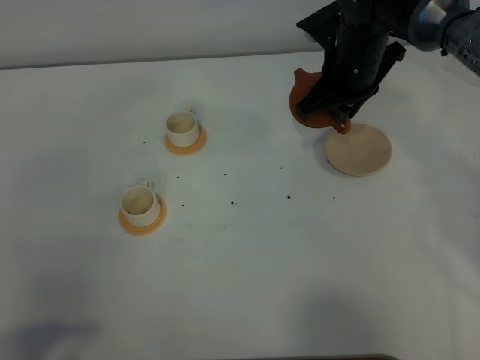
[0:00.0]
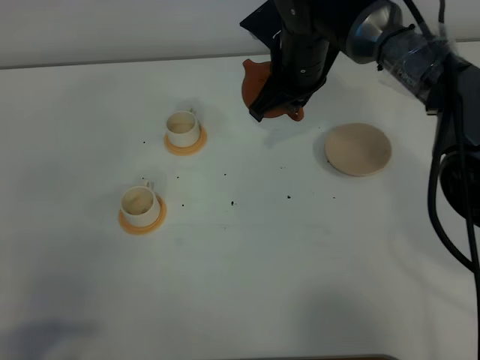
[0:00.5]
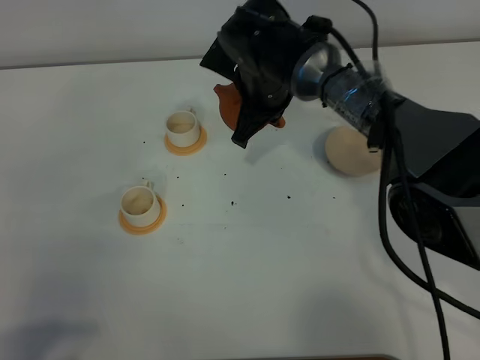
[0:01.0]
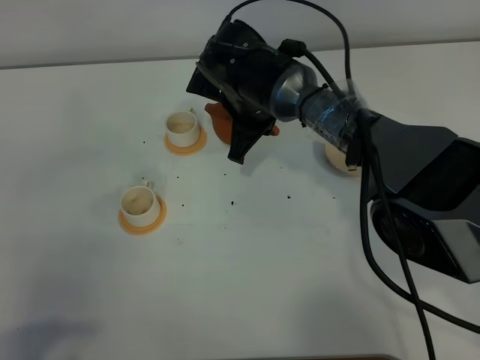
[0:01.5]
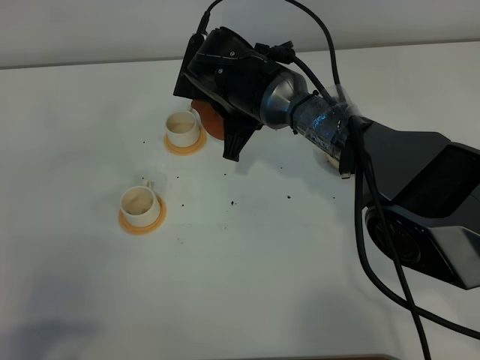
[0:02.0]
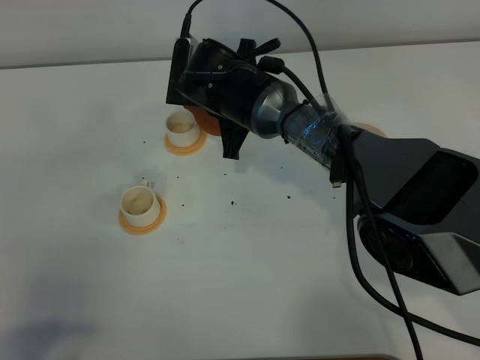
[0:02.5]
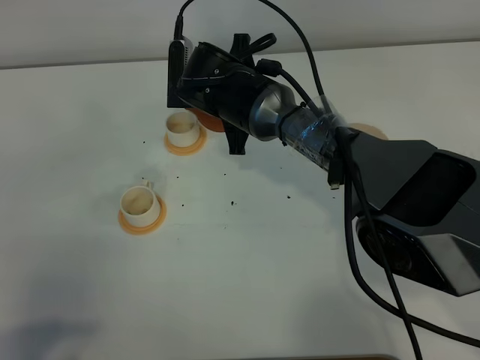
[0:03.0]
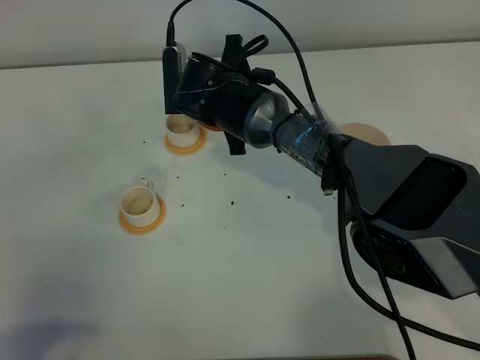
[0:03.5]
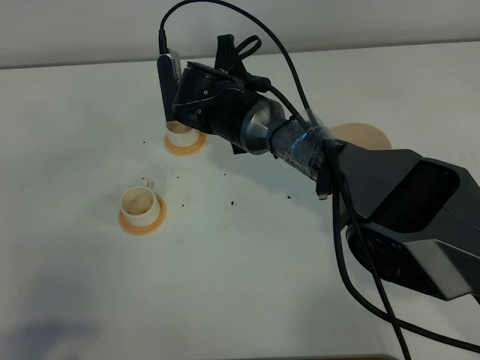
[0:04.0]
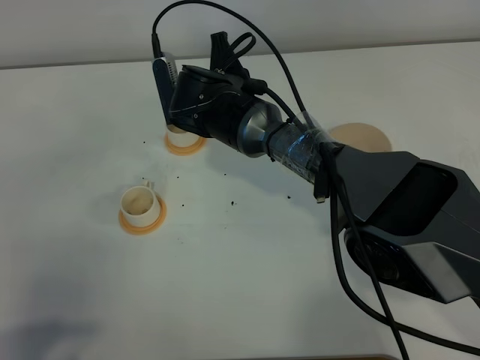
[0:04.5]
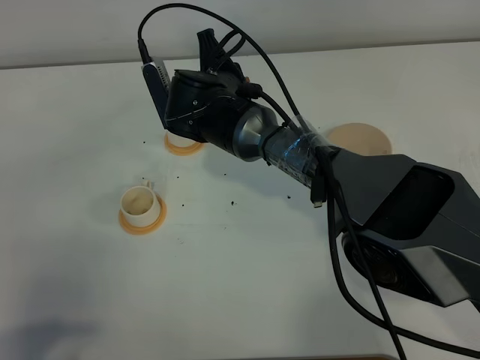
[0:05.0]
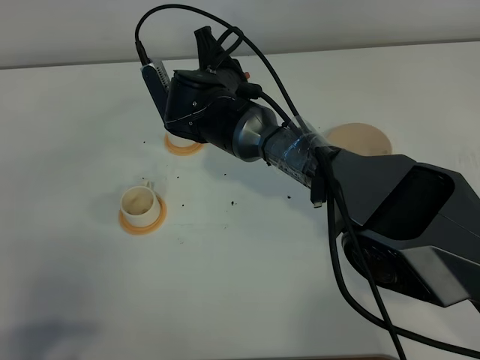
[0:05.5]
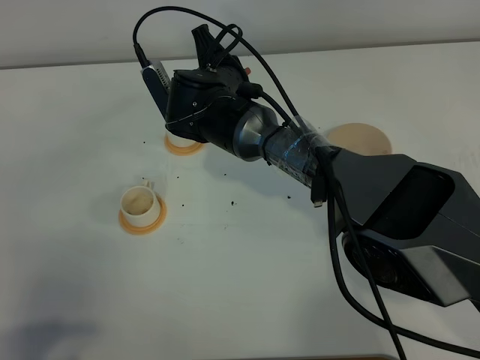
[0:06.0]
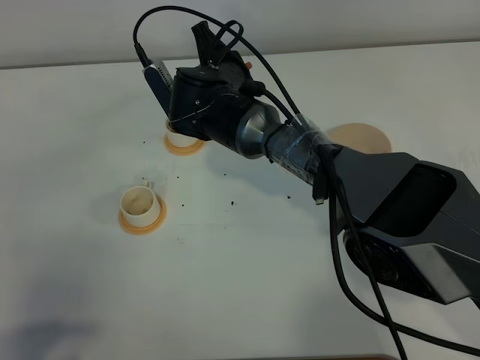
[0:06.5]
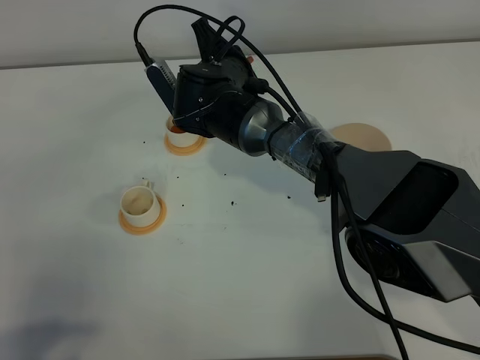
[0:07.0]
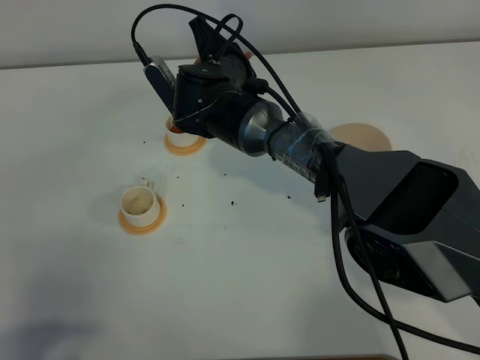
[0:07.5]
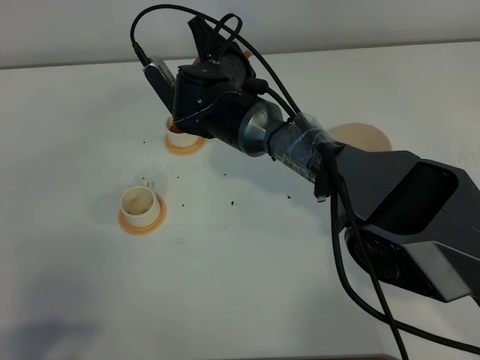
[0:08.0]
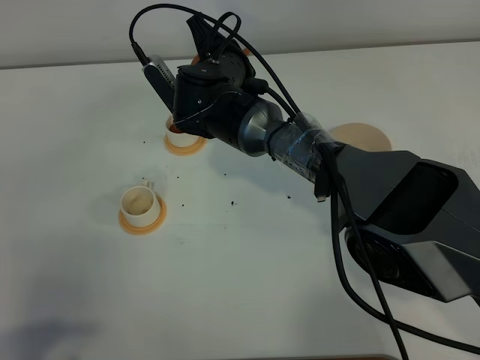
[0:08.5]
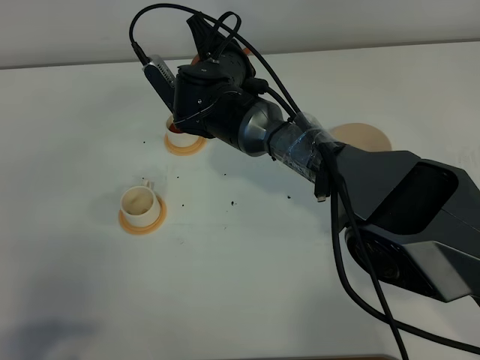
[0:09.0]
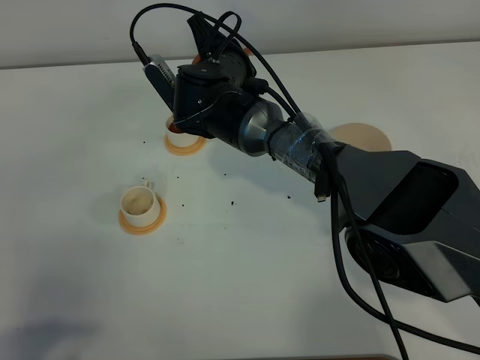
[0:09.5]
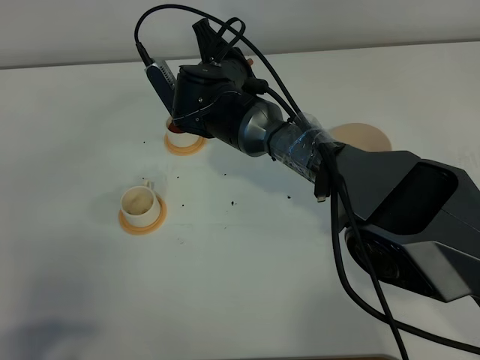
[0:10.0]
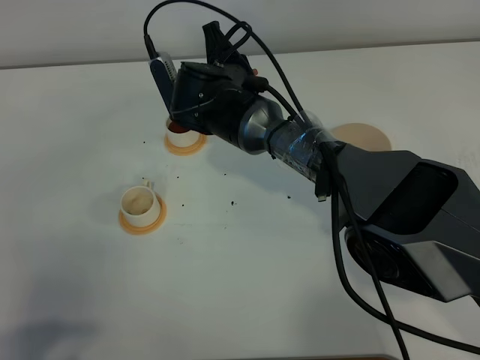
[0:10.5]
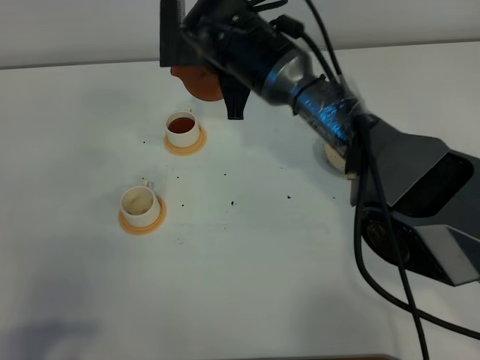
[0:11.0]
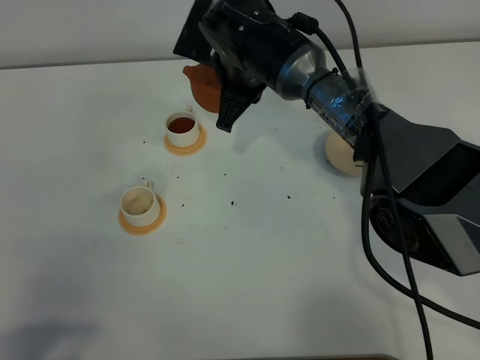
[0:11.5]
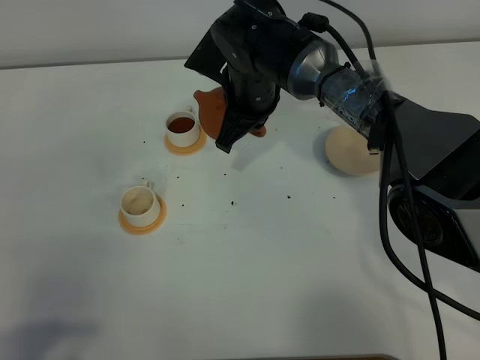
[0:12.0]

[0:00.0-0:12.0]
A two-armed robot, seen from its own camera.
Task of the whole recording: grasp the brown teapot and pour the tea into the two white teacups one by one, put the brown teapot back in its original place.
0:00.0 to 0:02.0: The right gripper heads to the left, covering about 15 cm.
0:04.0 to 0:06.0: The grippers move only a little.
0:06.0 to 0:08.0: The grippers make only small movements.
0:08.0 to 0:10.0: Both grippers stay about where they are.

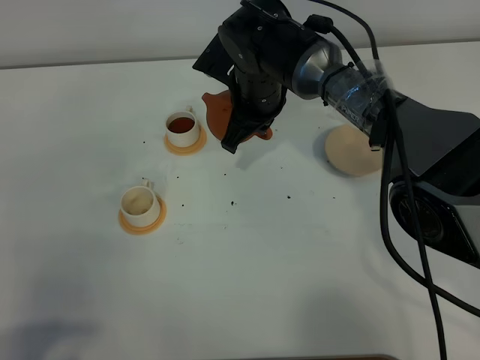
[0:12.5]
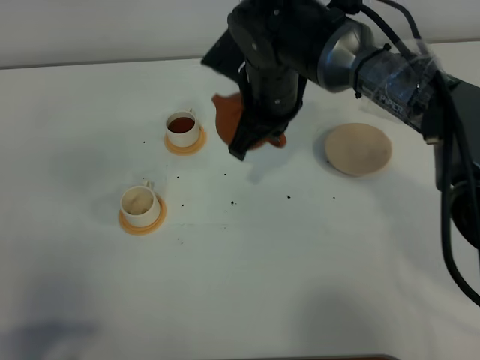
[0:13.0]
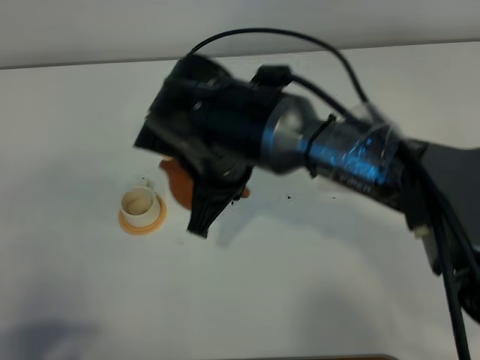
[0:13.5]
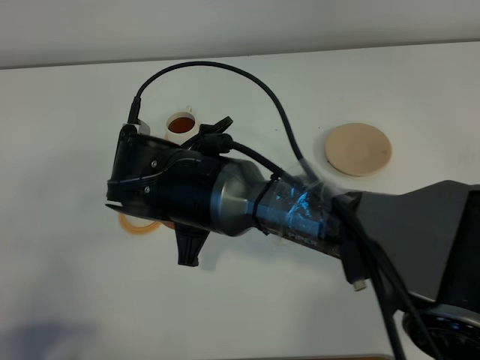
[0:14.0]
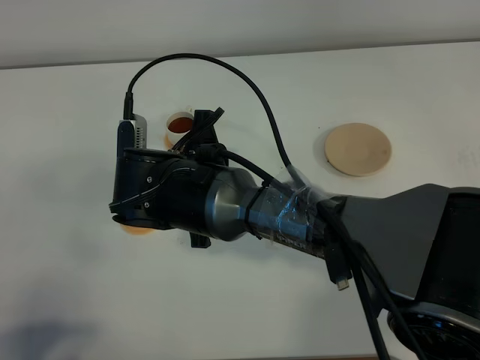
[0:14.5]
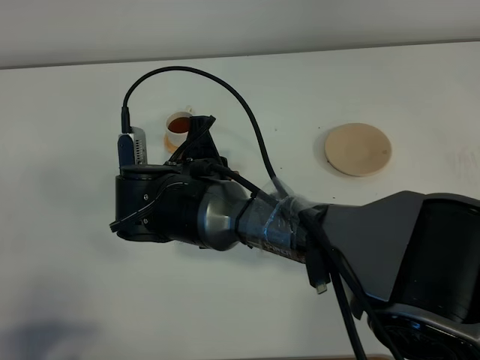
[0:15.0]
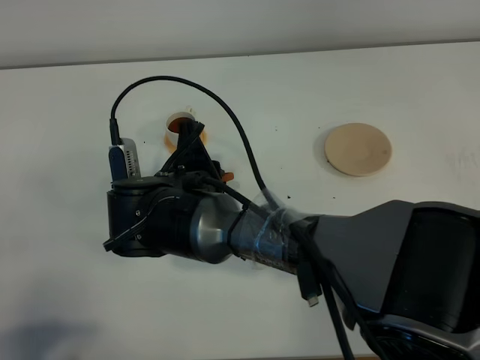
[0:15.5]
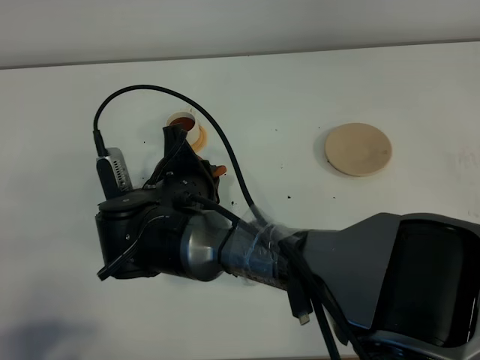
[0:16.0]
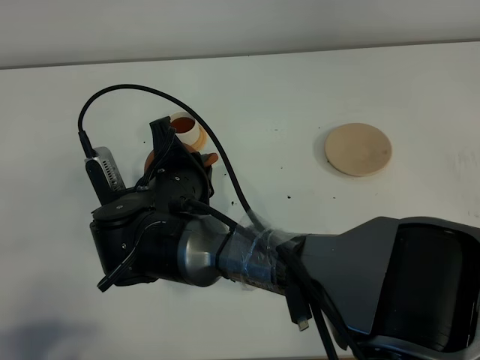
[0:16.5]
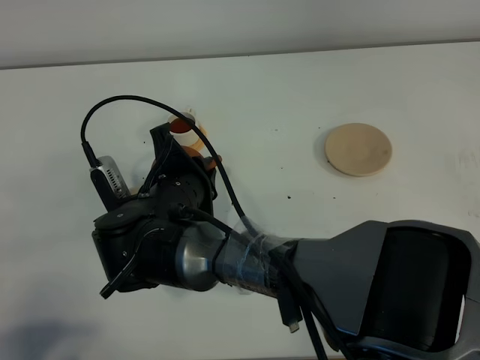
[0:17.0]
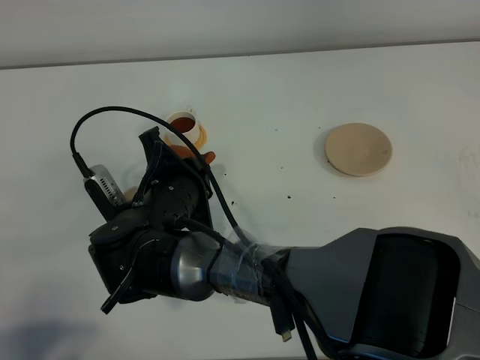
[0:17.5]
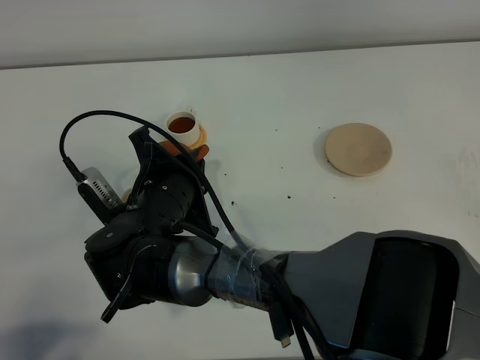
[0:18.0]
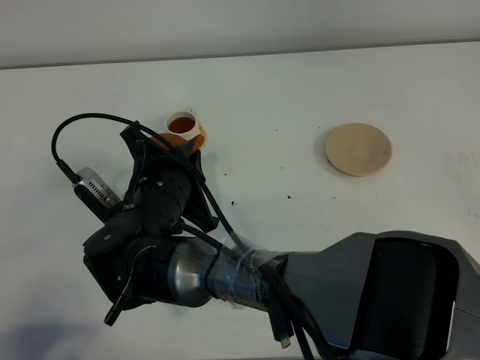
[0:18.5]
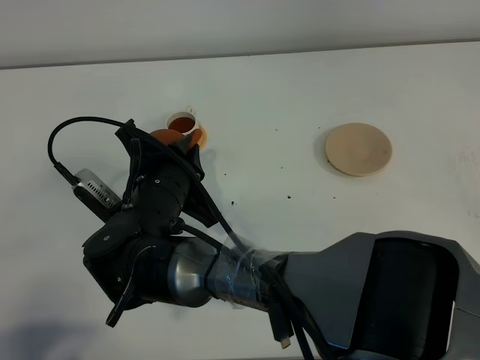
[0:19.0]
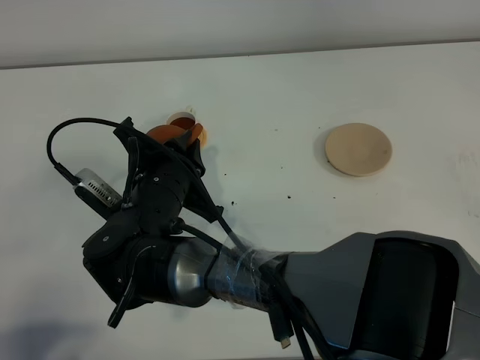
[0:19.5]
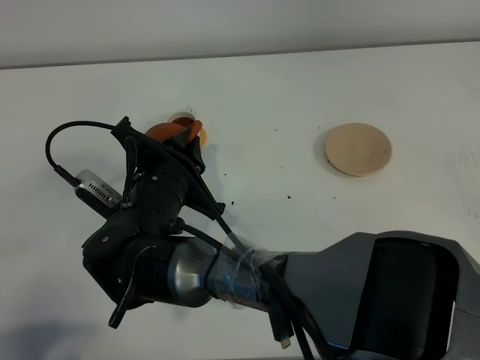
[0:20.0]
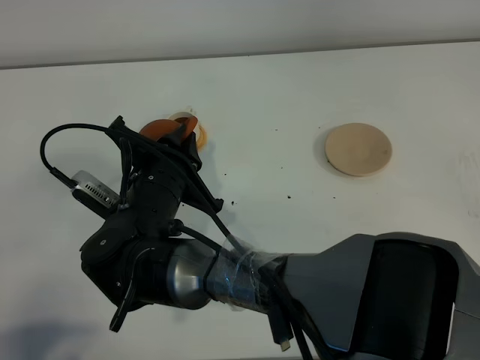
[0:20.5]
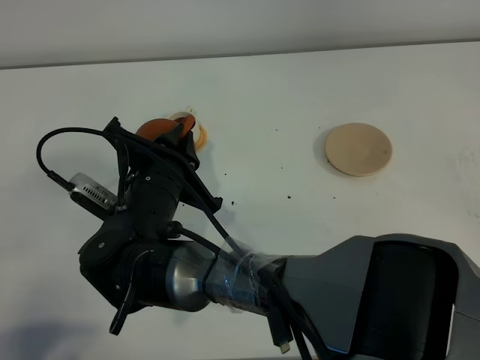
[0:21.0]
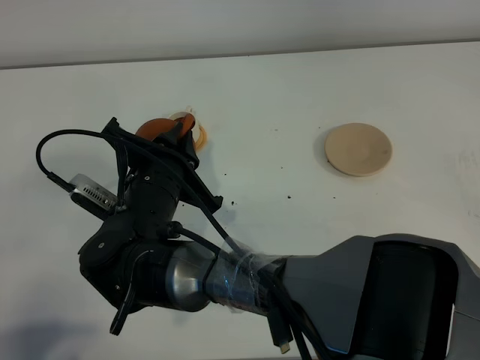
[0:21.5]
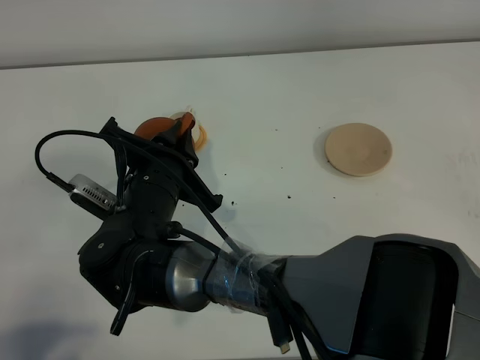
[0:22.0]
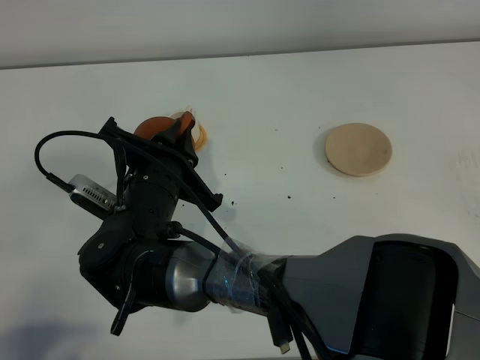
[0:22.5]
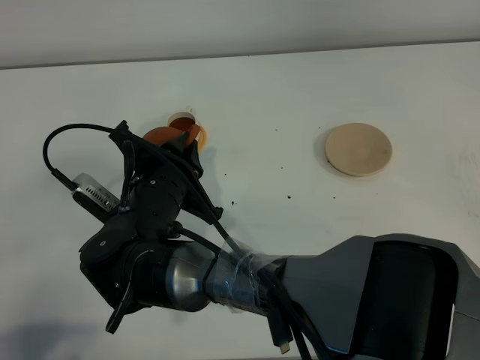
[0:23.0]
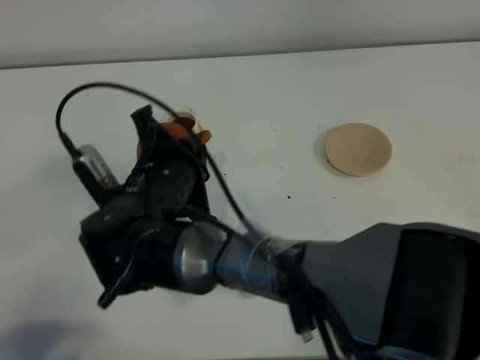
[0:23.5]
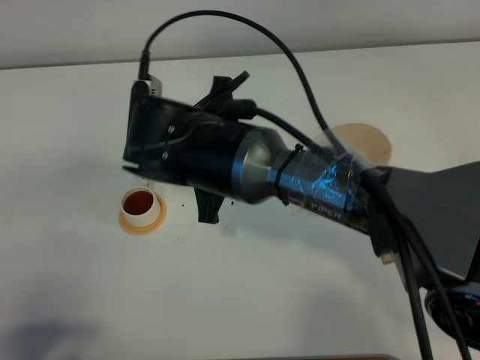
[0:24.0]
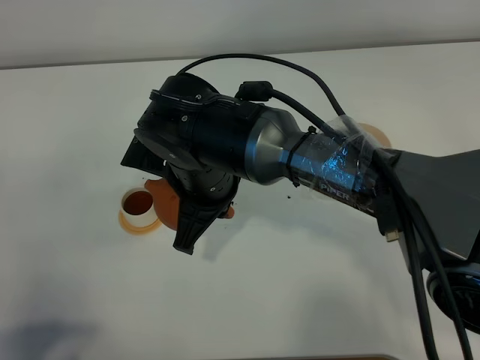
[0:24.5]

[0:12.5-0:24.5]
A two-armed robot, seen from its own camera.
Task of the whole recording: grasp the brown teapot and pour the tea into the two white teacups one by one, put the brown teapot back in its original place.
Step, 0:12.5 to 0:23.5: Pour tea into the teacup with the right gripper.
0:12.5 to 0:14.5: The right gripper shifts about 15 cm backward.
0:16.5 to 0:18.5: The grippers make only small movements.
0:18.5 to 0:20.5: The grippers stay close to where they were, moving slightly.
0:20.5 to 0:22.5: Neither gripper changes place.
0:22.5 to 0:24.5: The right gripper moves to the right, roughly 5 cm.

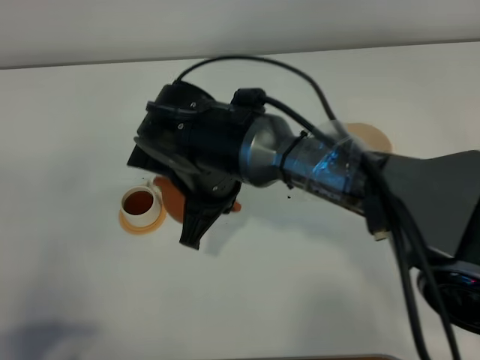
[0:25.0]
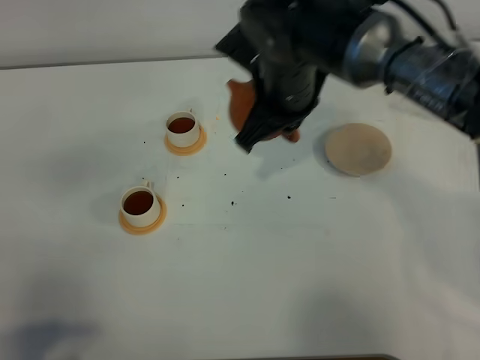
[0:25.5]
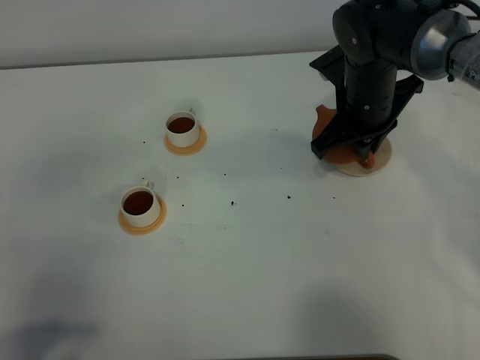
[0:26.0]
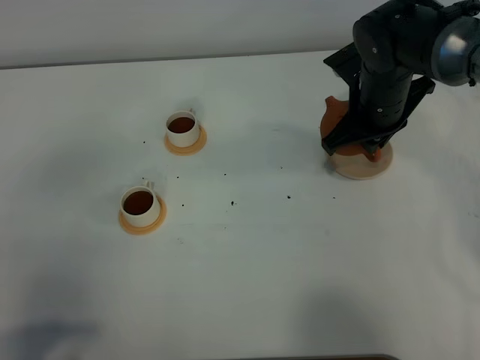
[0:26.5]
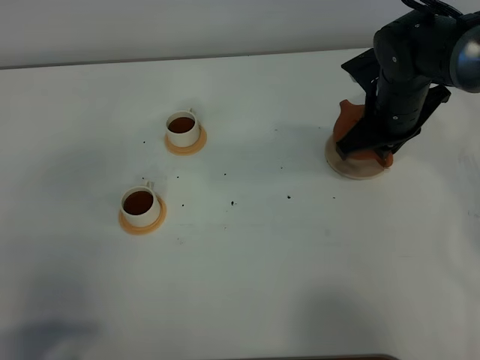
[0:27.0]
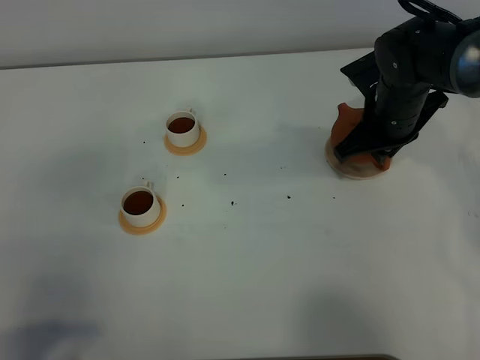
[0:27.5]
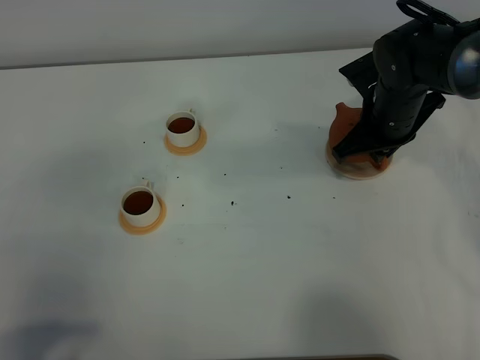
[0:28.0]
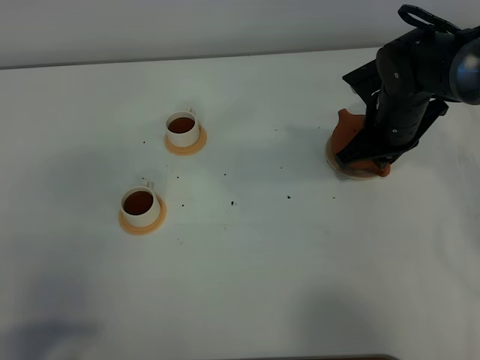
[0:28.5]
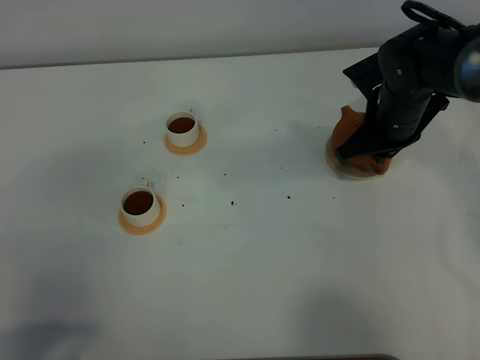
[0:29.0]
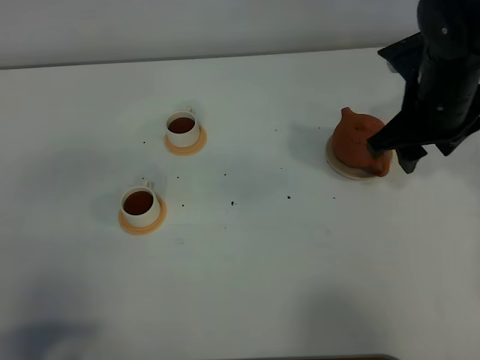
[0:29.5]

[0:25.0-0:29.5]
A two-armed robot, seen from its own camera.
Task of the whole recording: grasp the brown teapot and pour the tea into the two white teacups one by one, put the brown teapot back in its original place.
Step, 0:25.0 to 0:29.0: Pick up the teacup with the right gripper.
0:25.0 to 0:27.0: The right gripper heads to the right and forward, covering some 25 cm.
0:27.0 to 0:29.5: The right gripper moves upward and backward, approximately 10 cm, and opens its fingers.
